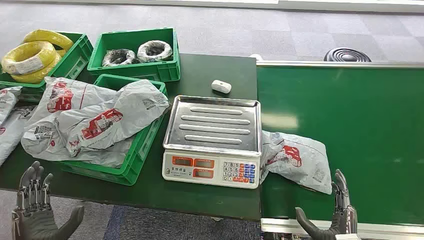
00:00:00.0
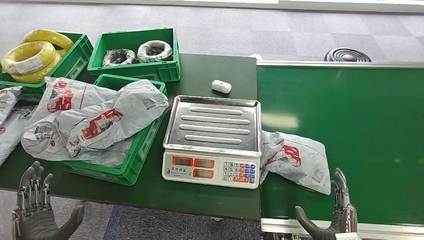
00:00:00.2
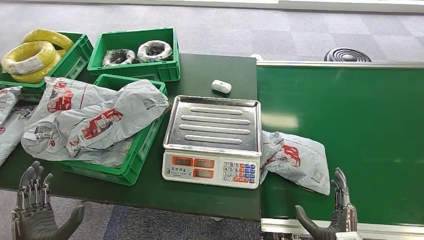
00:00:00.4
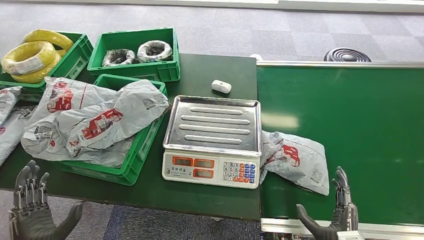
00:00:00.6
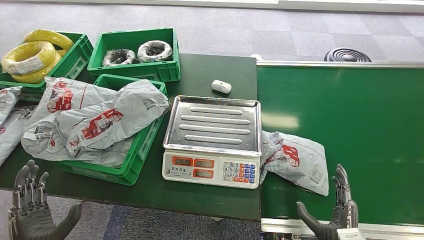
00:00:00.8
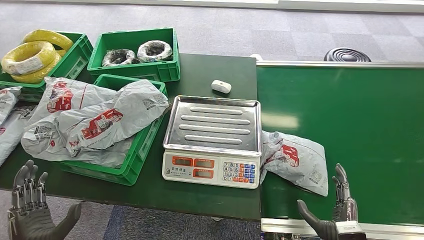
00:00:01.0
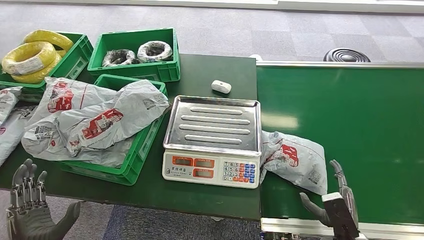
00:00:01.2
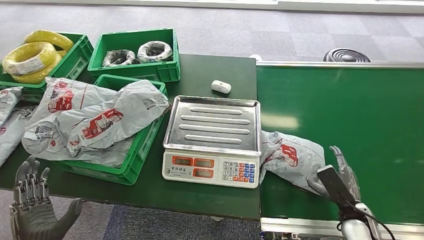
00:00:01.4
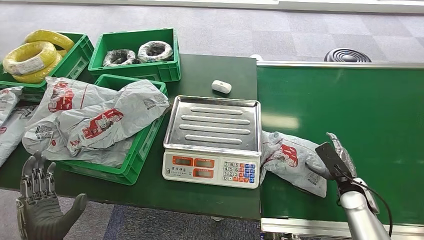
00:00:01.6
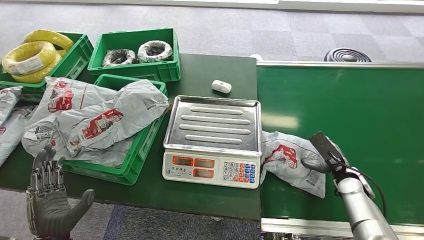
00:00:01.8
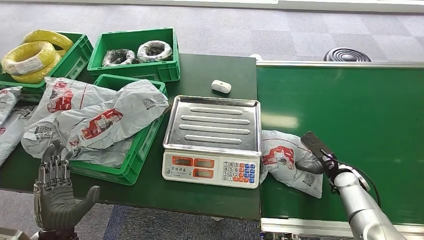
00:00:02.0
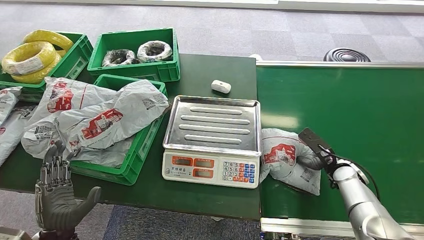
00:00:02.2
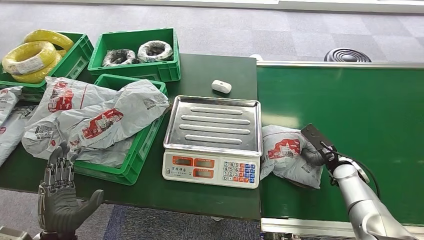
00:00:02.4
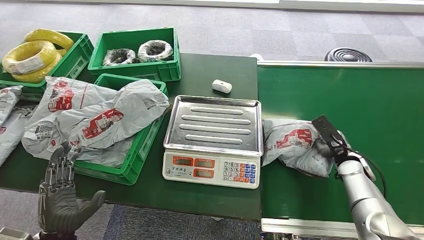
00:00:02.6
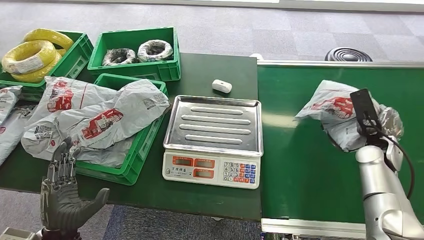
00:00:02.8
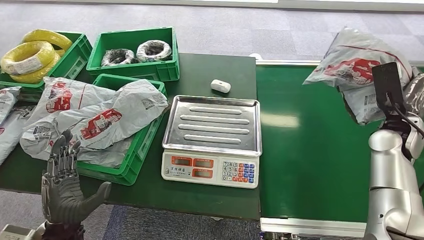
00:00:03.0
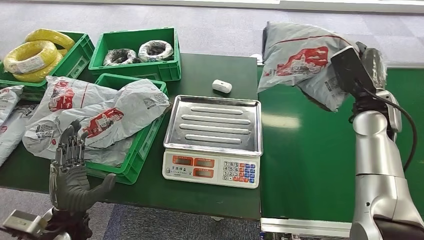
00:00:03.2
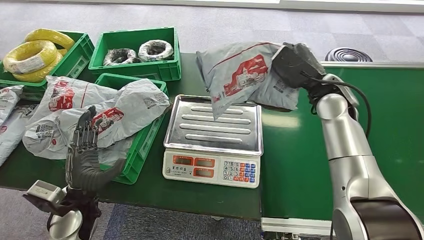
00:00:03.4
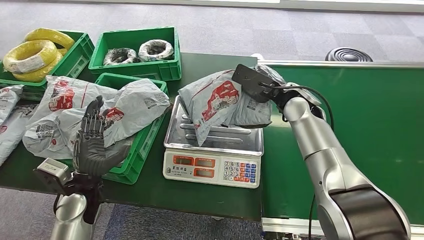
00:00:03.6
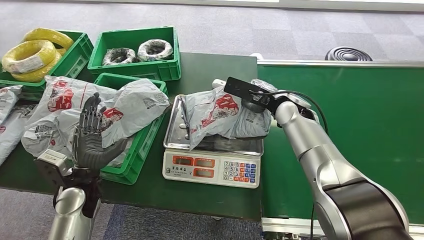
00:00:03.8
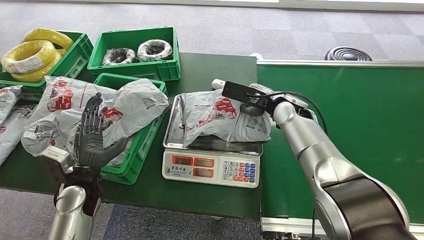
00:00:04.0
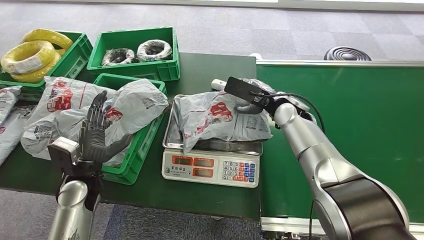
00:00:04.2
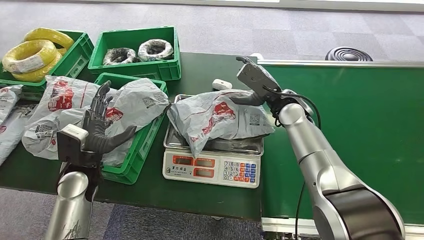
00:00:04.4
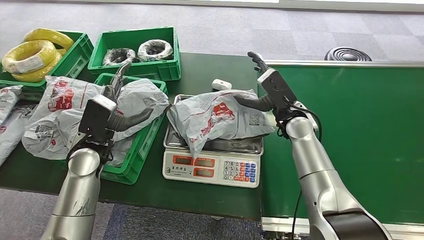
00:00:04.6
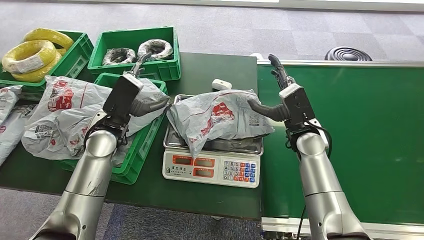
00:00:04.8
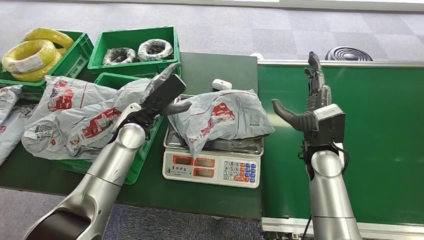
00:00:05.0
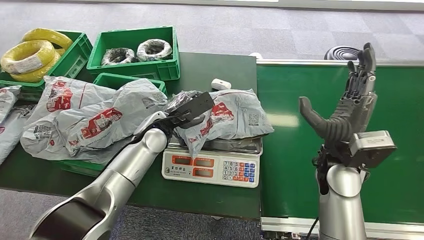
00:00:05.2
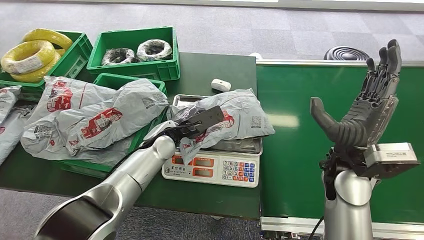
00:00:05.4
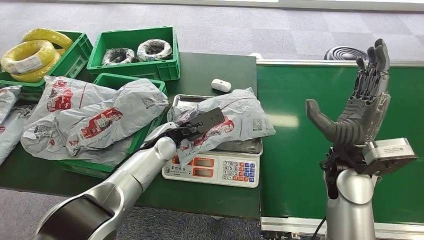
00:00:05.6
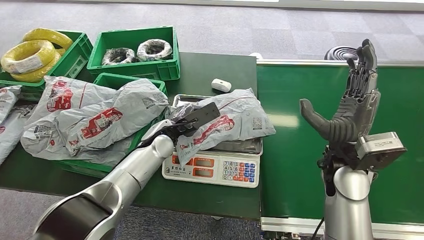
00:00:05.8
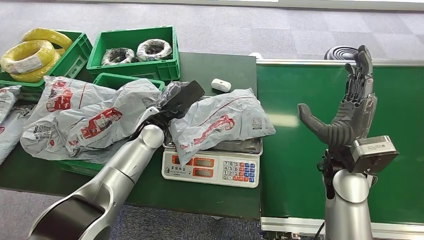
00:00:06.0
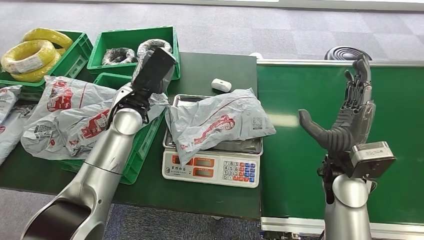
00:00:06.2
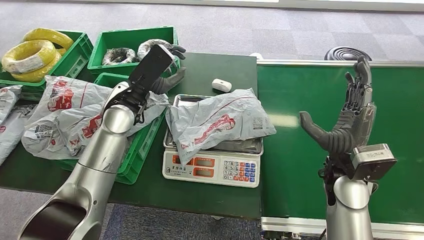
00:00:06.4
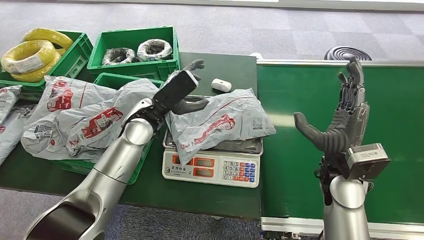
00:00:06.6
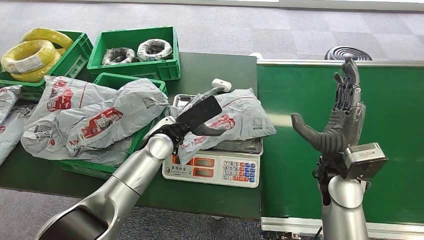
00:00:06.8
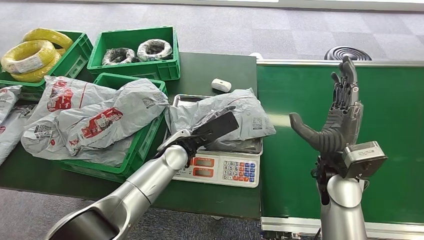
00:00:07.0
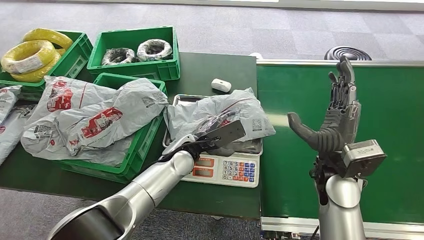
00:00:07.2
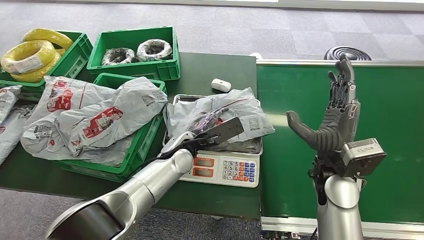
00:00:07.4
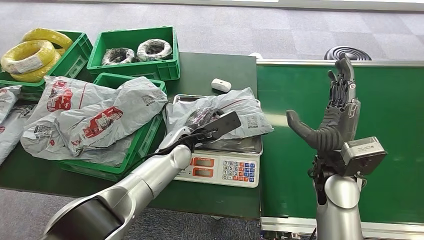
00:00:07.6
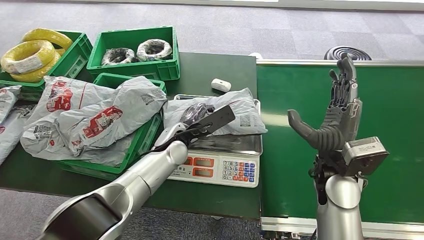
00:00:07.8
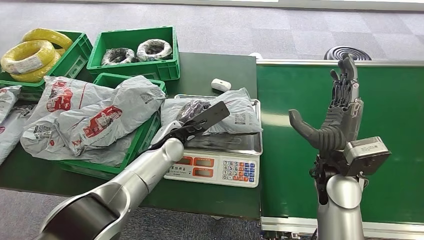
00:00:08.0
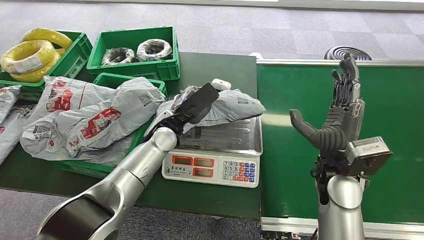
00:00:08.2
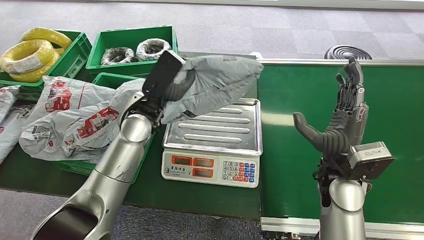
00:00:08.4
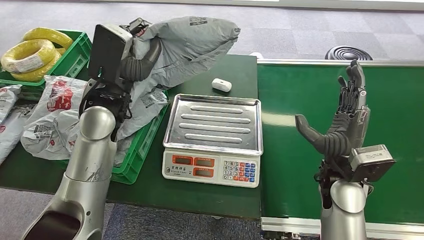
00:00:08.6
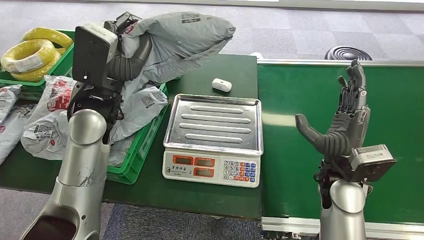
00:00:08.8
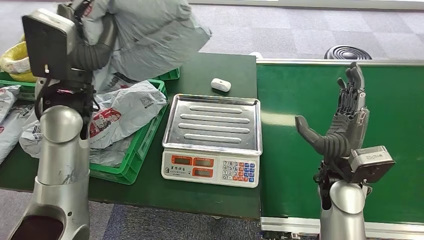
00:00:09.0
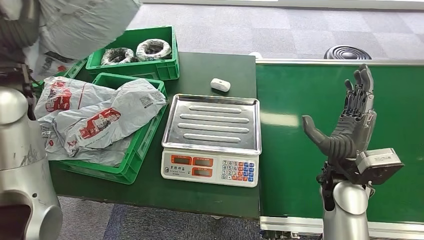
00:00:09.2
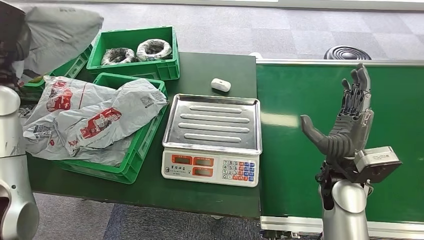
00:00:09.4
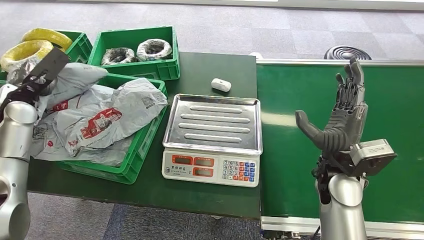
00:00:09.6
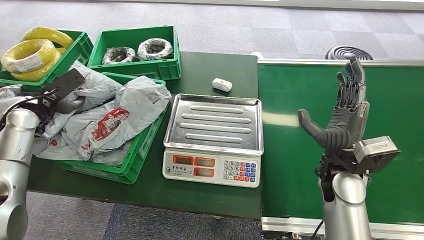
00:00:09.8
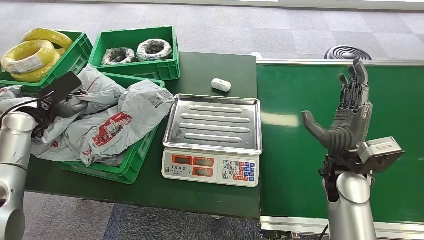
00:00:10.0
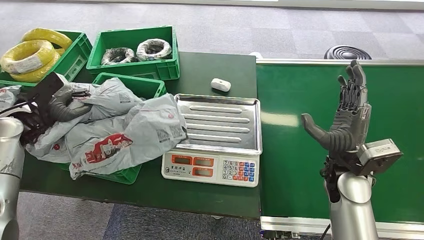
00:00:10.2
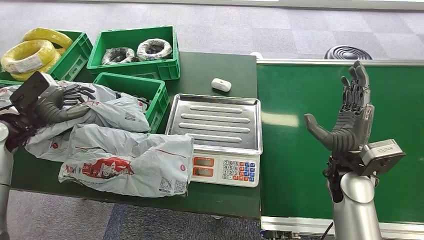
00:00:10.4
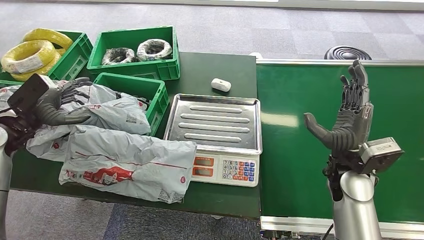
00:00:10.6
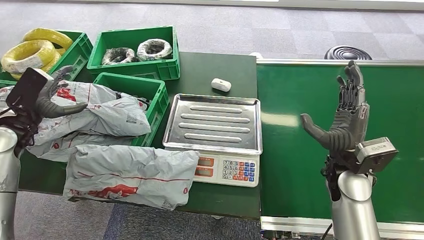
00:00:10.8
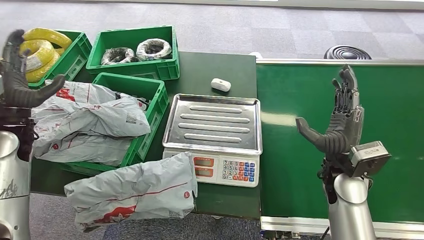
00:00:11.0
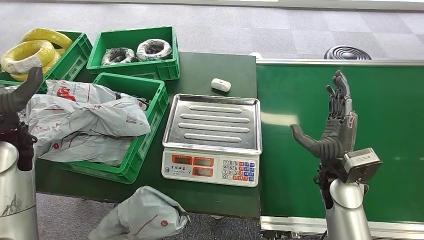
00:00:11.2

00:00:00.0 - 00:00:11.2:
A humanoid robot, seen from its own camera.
Step, 00:00:00.0 - 00:00:02.8: Pick up the package from the conveyor belt.
Step, 00:00:03.2 - 00:00:04.6: Place the package onto the inbound machine.
Step, 00:00:04.8 - 00:00:08.6: Pick up the package from the inbound machine.
Step, 00:00:08.8 - 00:00:11.2: Place the package into the parcel locker.
